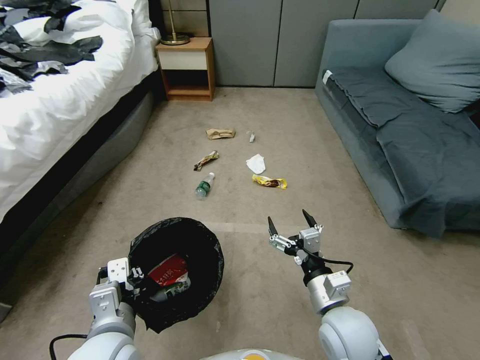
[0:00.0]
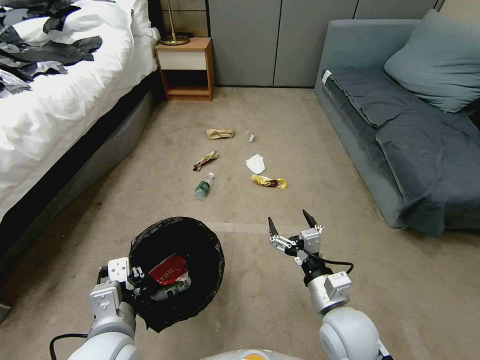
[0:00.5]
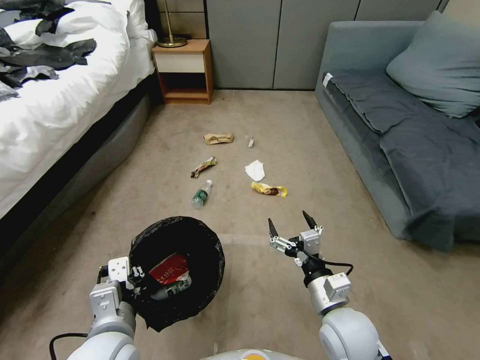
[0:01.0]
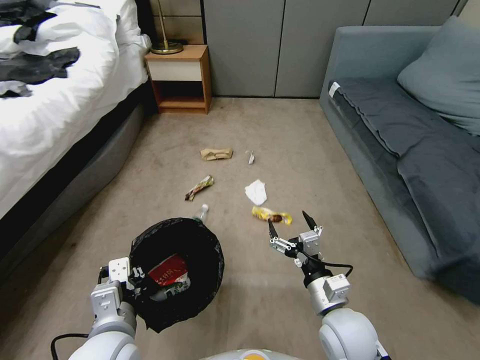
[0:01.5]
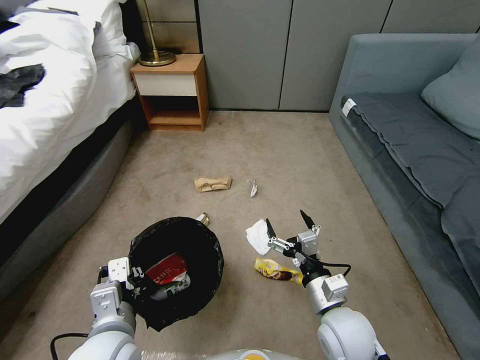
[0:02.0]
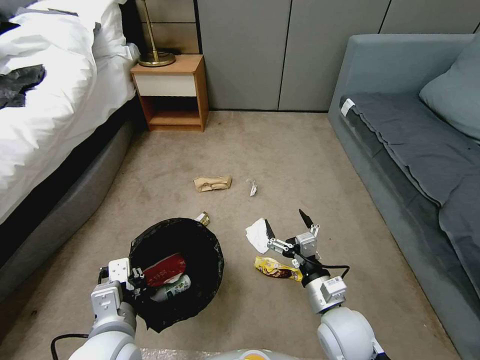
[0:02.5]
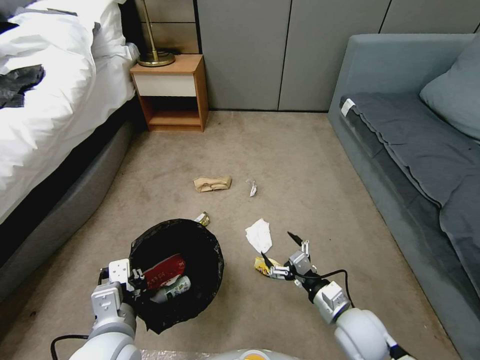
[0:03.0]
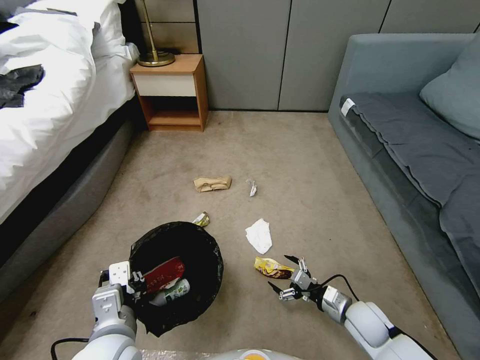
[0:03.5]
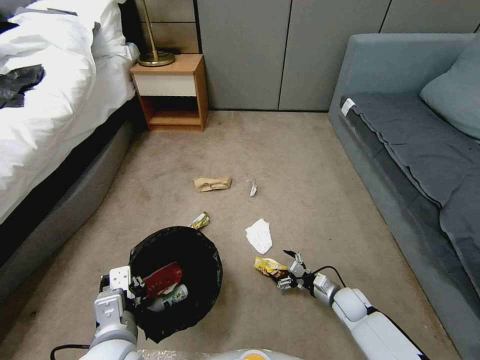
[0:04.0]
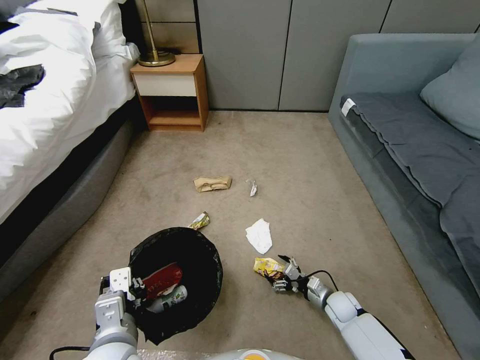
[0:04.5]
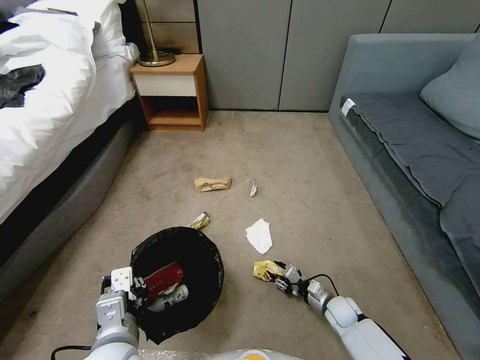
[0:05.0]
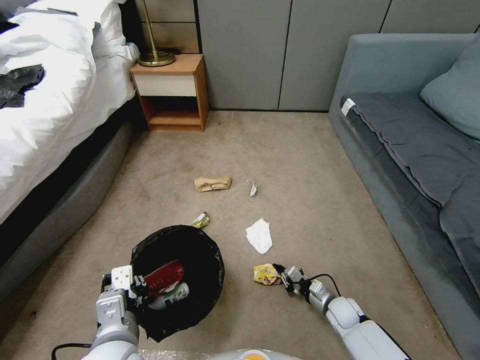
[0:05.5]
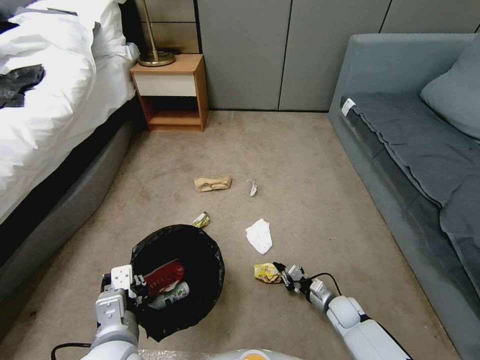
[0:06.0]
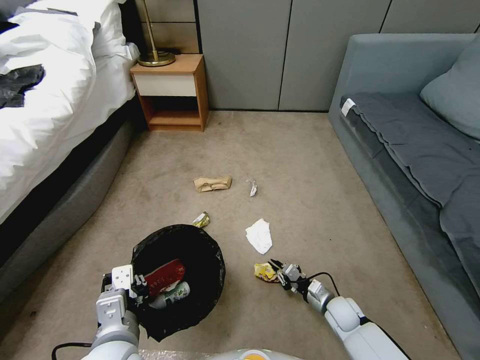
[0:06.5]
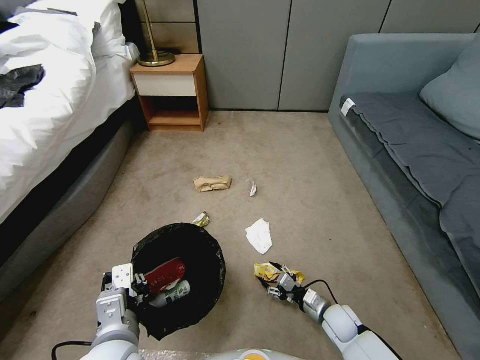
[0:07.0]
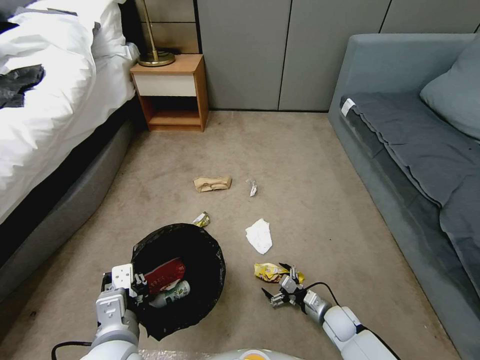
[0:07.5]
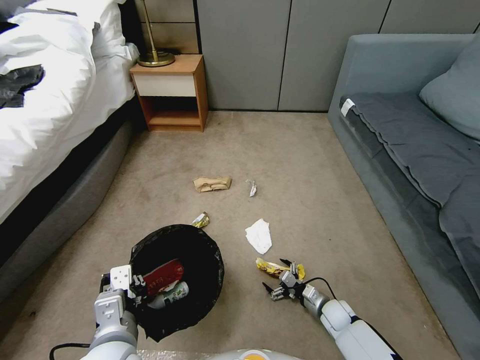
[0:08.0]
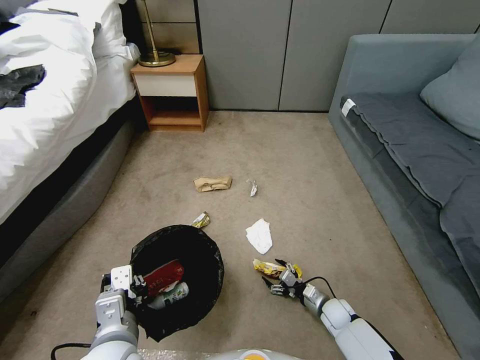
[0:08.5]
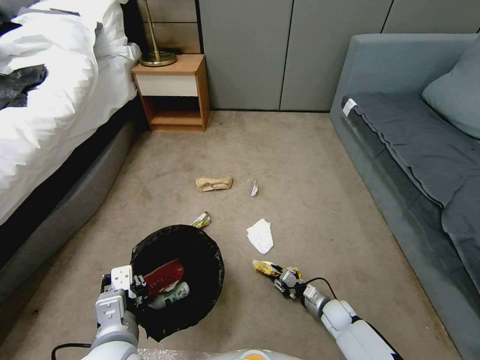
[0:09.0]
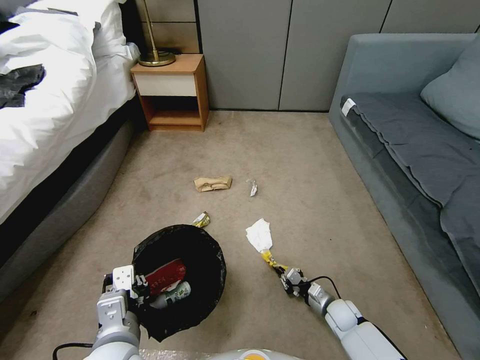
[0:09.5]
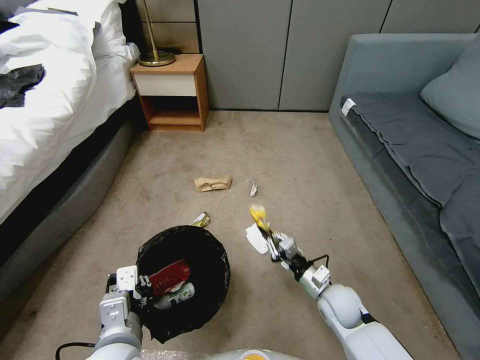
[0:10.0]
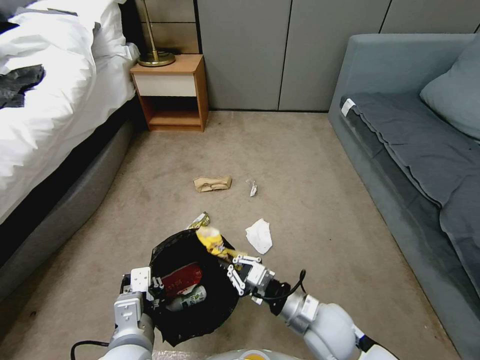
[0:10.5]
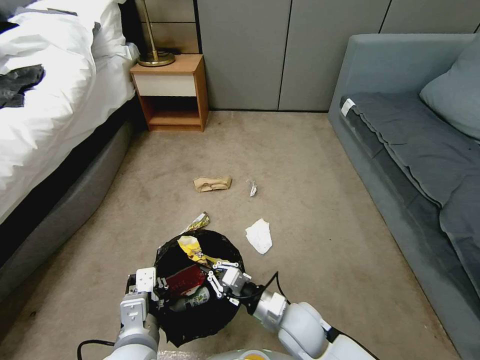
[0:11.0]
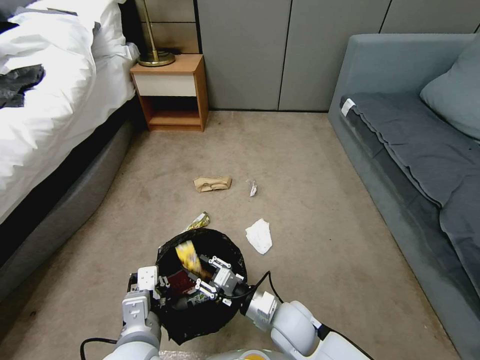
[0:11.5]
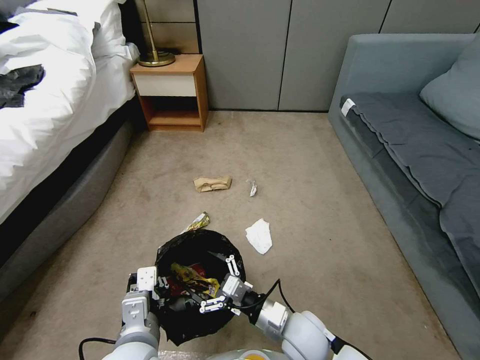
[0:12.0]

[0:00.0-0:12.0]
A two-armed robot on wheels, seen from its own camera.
Task of the whole recording: Pick up the trash bin, then pick up the garbage from the floor and place it into the trash bin.
2.0 to 4.0 s: The right gripper is displaced downward, to the right and forward by approximately 25 cm.
4.0 to 6.0 s: The right gripper closes up.
6.0 to 8.0 s: The right gripper opens up.
8.0 to 10.0 s: The right gripper goes approximately 20 cm upward, and closes.
10.0 to 12.0 s: The right gripper is displaced to the left and backward by about 10 cm, and opens its fingers.

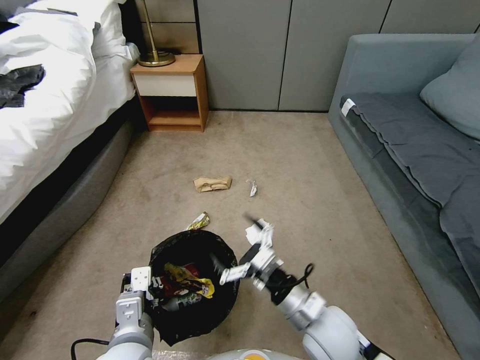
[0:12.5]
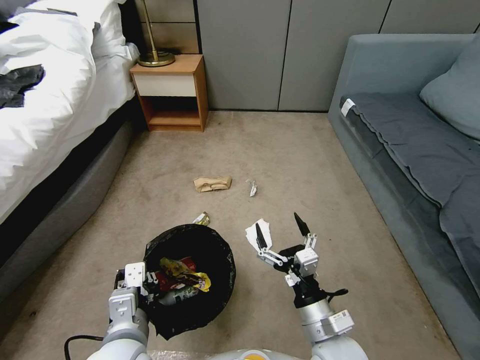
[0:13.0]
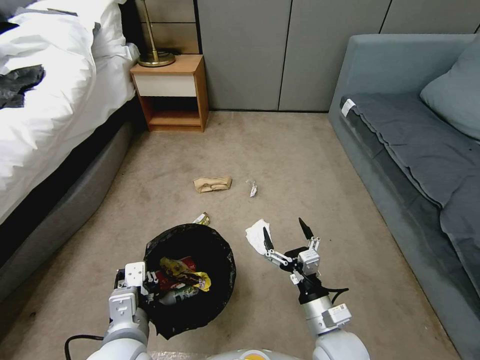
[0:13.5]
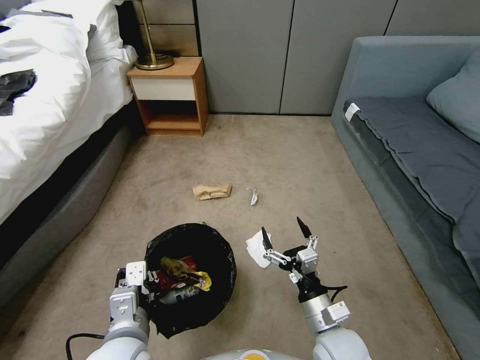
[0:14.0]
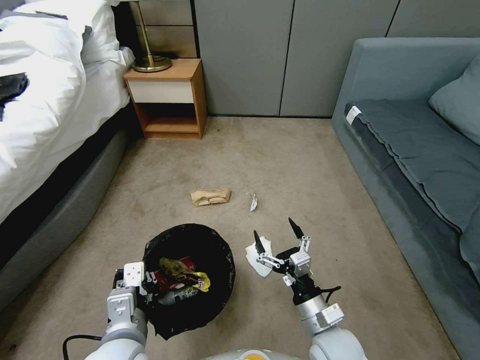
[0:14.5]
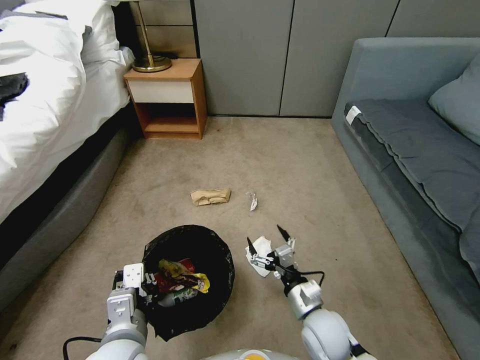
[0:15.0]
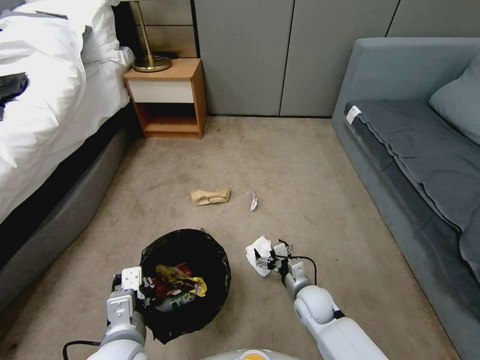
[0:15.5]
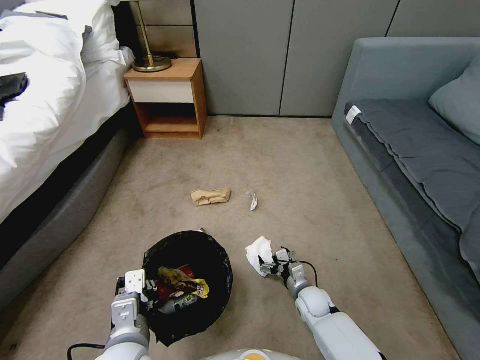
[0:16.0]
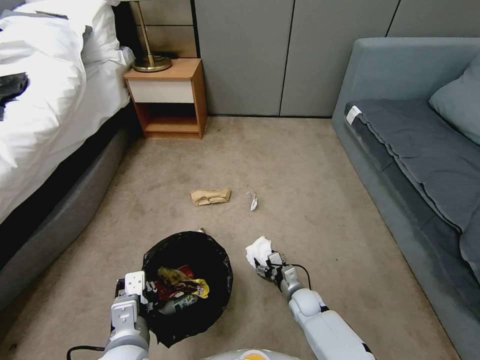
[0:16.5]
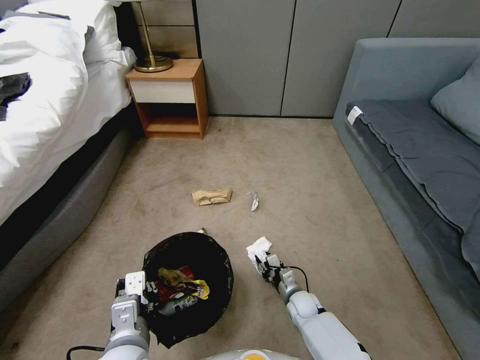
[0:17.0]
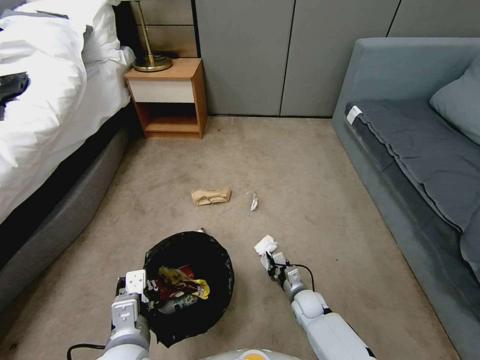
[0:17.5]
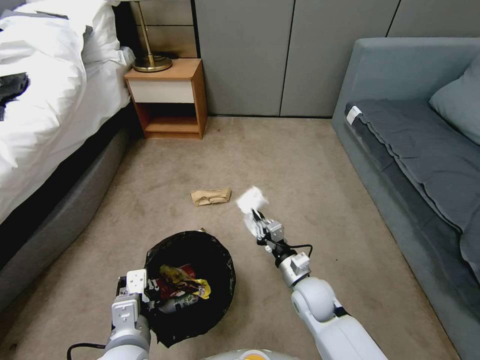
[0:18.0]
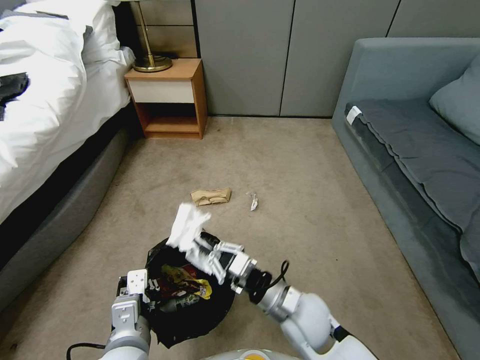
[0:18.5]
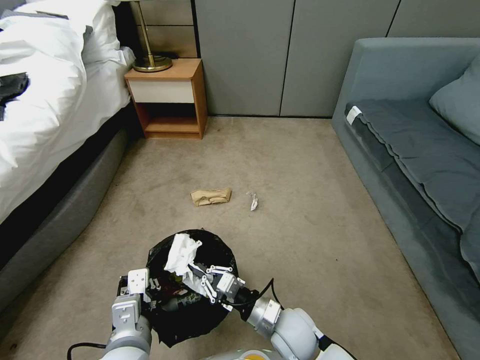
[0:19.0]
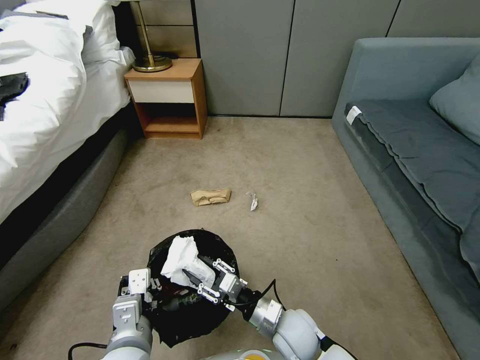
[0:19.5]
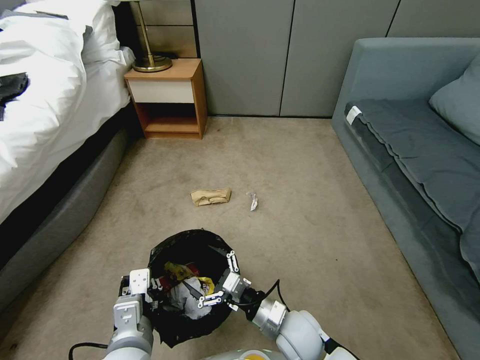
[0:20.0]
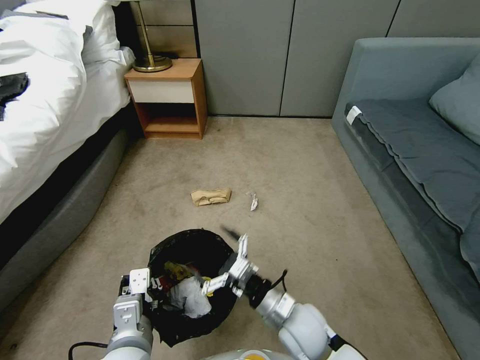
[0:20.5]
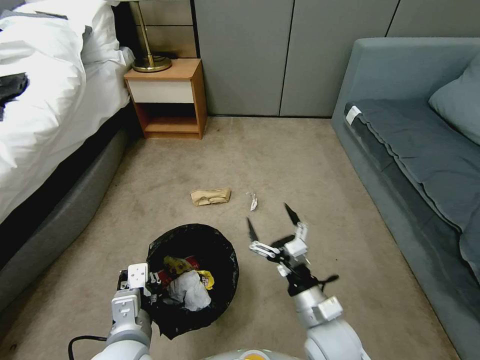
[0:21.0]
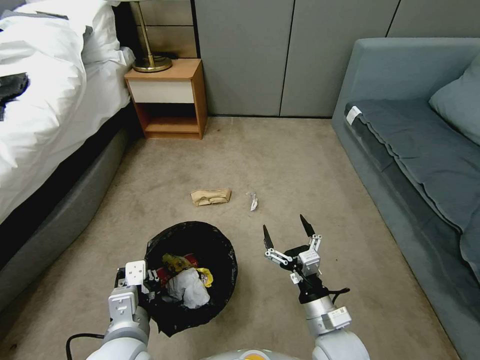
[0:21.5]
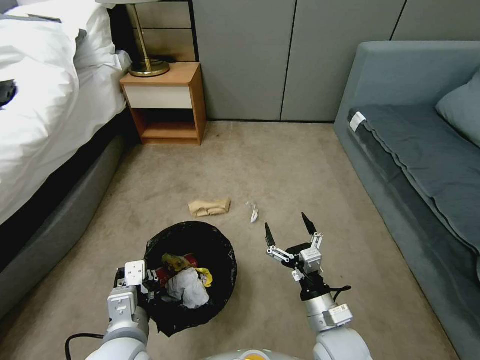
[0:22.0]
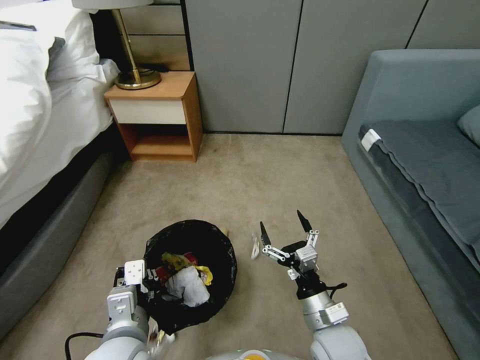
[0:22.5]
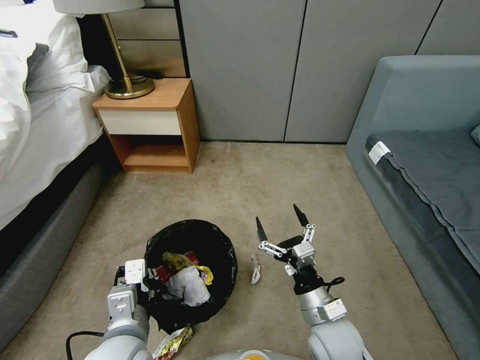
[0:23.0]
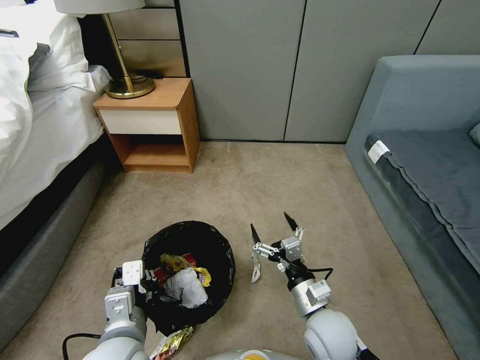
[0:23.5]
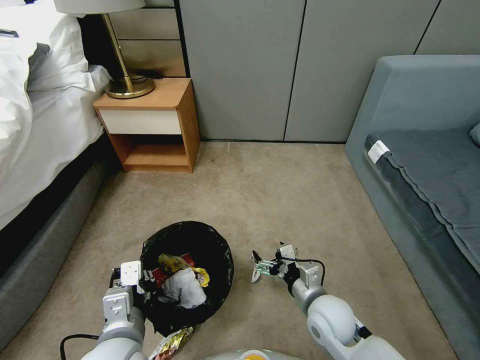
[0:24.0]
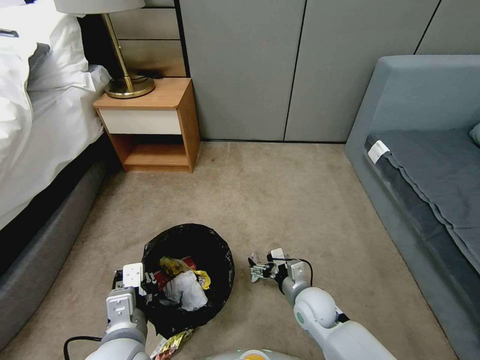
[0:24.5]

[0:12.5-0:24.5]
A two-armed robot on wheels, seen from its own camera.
Task of the whole recording: Pick up the trash bin, then pick up the garbage from the floor and place it into the trash bin.
12.5 to 14.5 s: The right gripper changes place by roughly 5 cm.
14.5 to 16.5 s: The right gripper travels downward and forward by some 25 cm.
16.5 to 18.5 s: The right gripper is displaced upward by some 25 cm, and closes its fingers.
18.5 to 20.5 s: The right gripper opens.
20.5 to 22.5 s: The right gripper shifts roughly 5 cm to the right.
22.5 to 24.5 s: The right gripper shifts approximately 15 cm forward and downward.

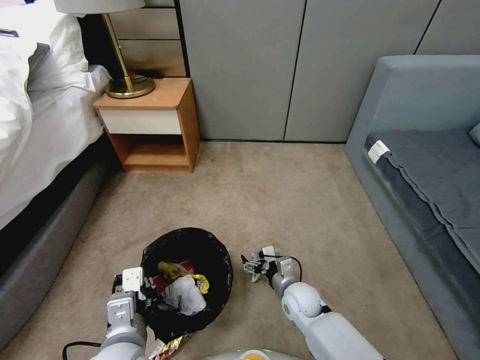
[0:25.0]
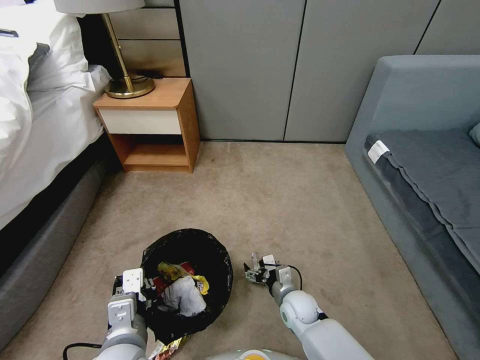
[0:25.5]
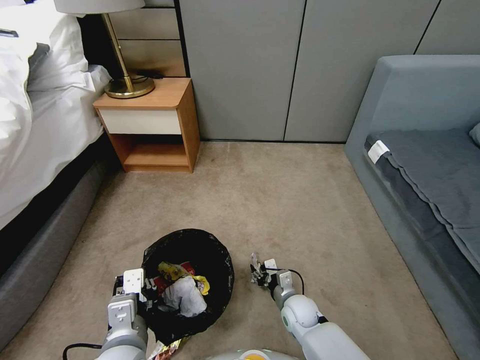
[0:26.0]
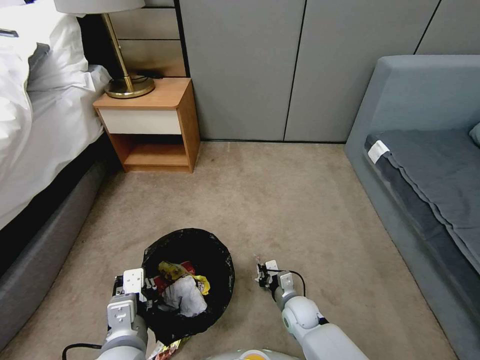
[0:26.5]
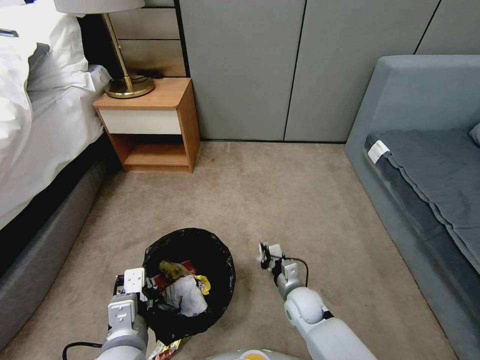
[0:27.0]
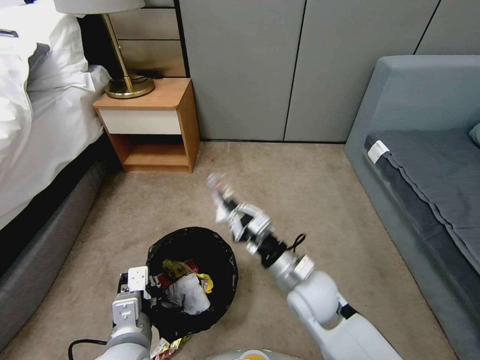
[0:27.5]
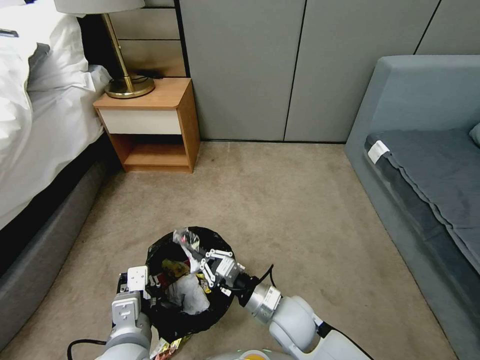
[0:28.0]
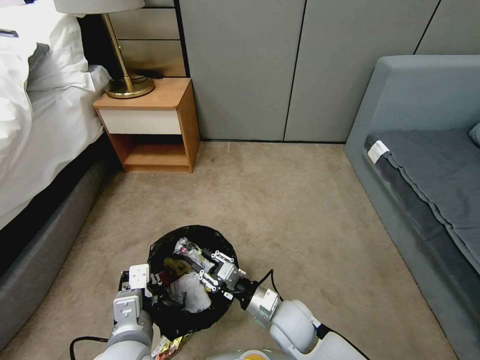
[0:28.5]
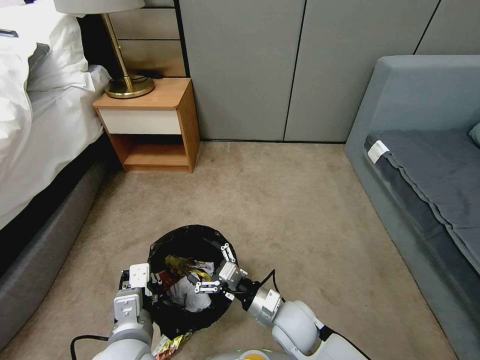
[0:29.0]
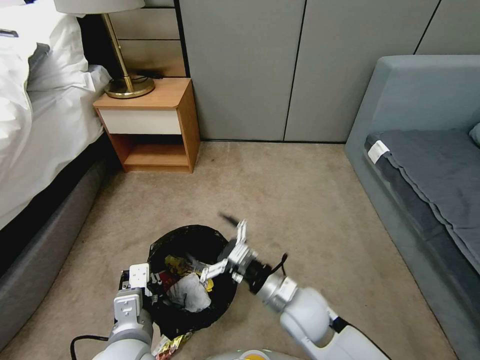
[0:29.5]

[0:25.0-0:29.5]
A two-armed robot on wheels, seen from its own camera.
Task of the whole recording: Pick up the trash bin, then pick up the garbage from the floor and place it into the trash bin.
25.0 to 27.0 s: The right gripper closes up.
27.0 to 29.5 s: The right gripper moves up and down over approximately 20 cm, changing direction 2 times, and opens.
